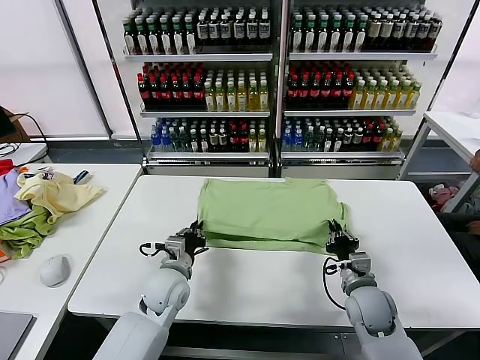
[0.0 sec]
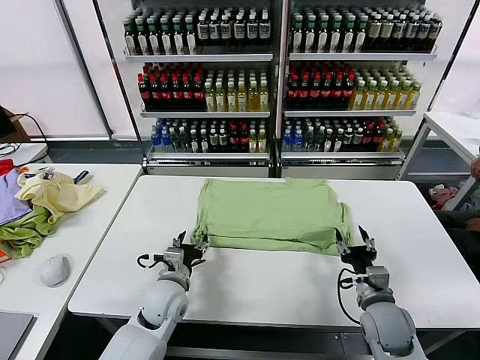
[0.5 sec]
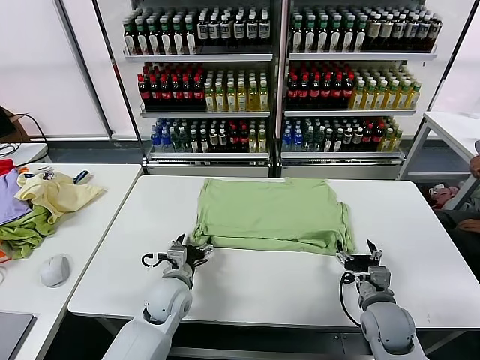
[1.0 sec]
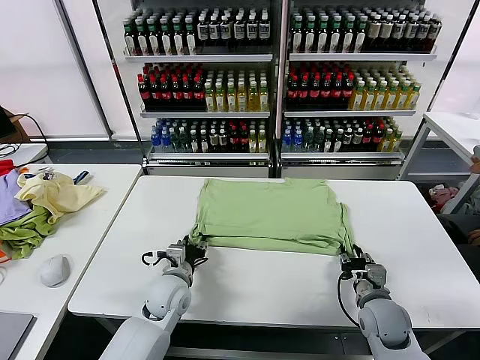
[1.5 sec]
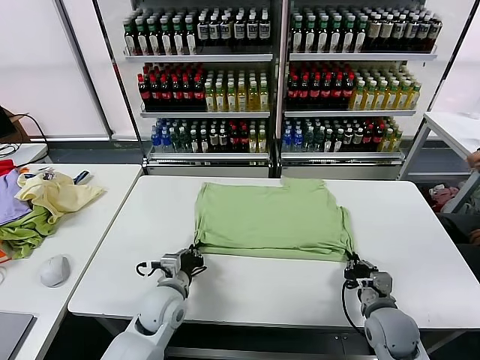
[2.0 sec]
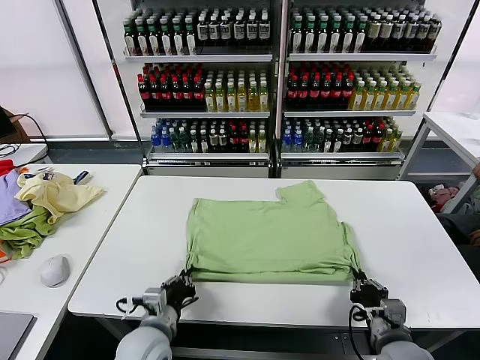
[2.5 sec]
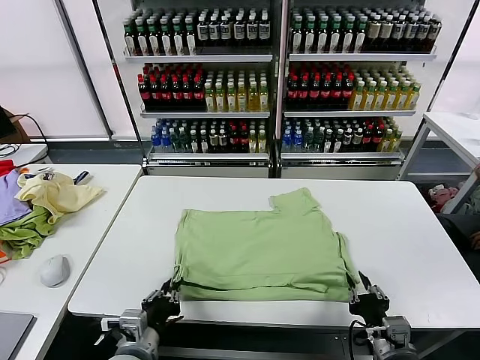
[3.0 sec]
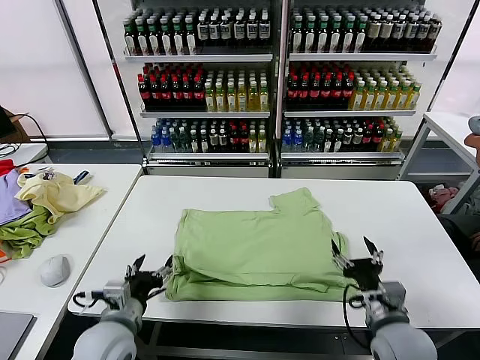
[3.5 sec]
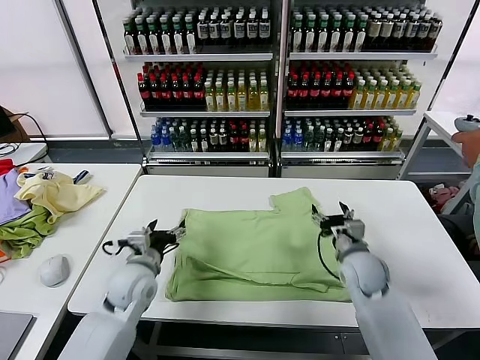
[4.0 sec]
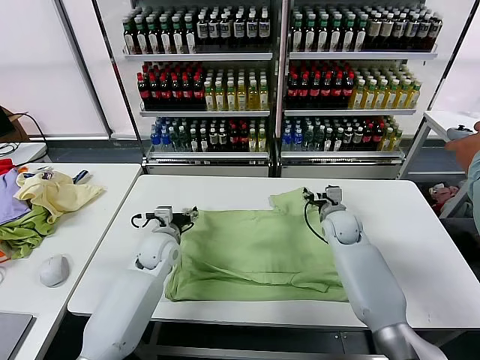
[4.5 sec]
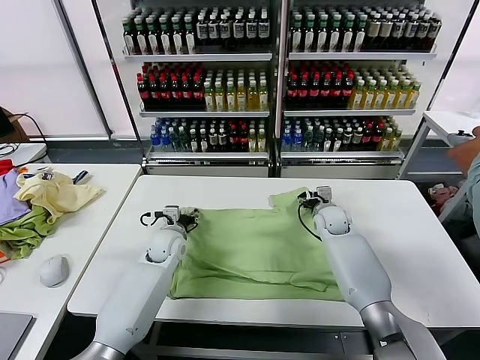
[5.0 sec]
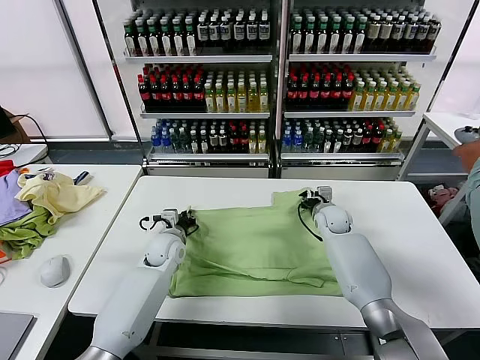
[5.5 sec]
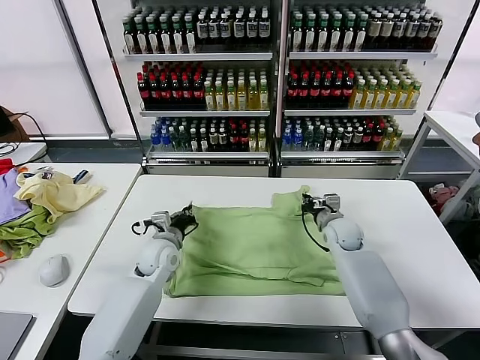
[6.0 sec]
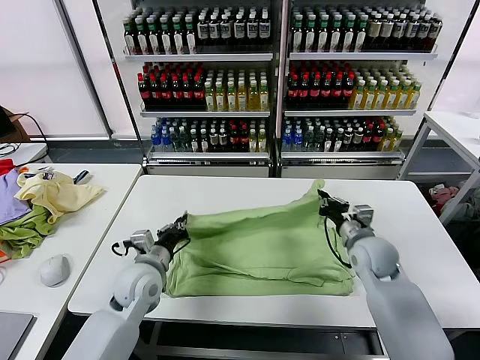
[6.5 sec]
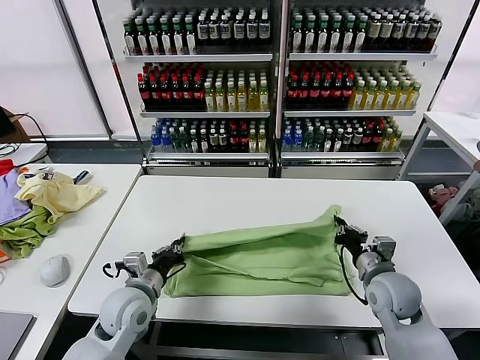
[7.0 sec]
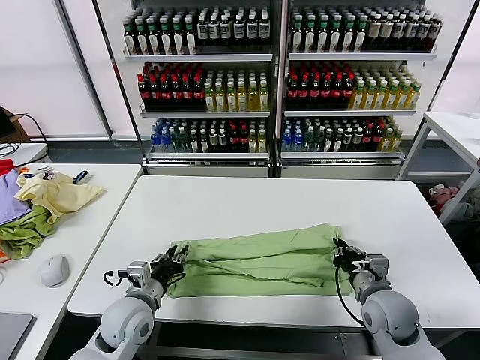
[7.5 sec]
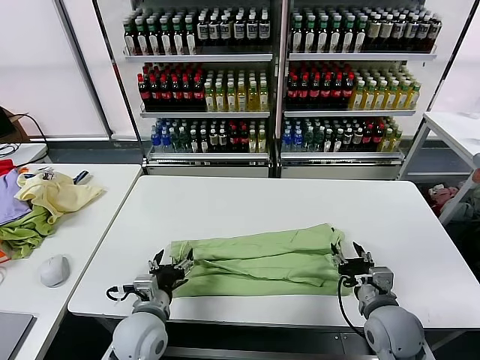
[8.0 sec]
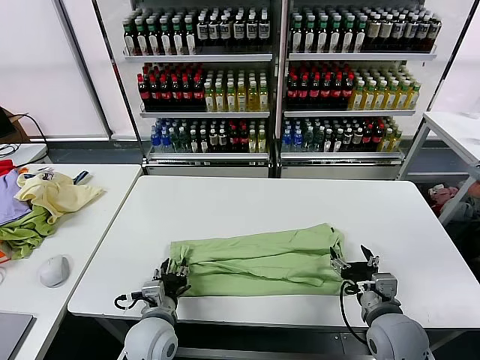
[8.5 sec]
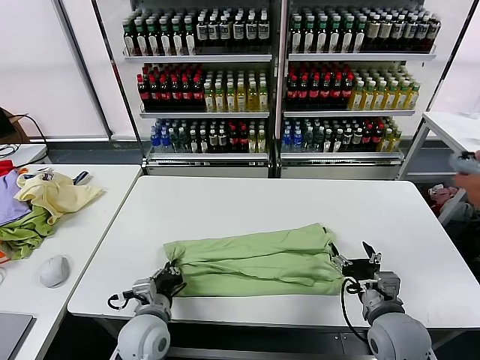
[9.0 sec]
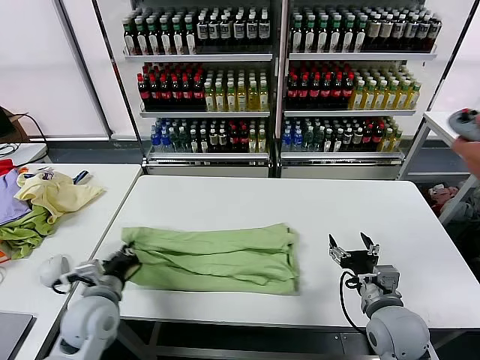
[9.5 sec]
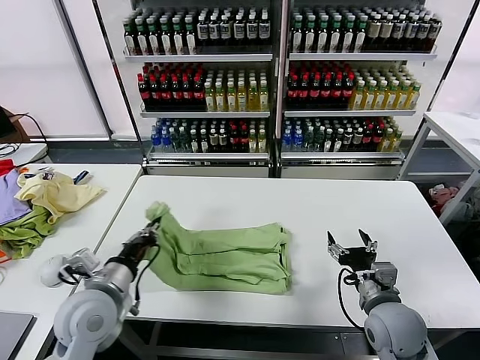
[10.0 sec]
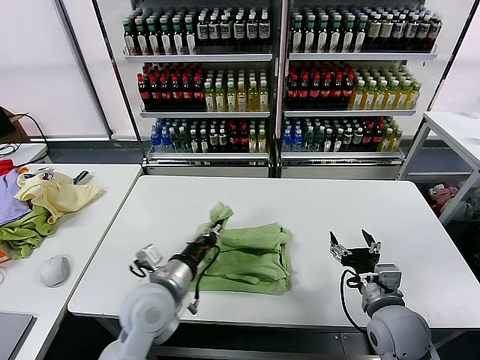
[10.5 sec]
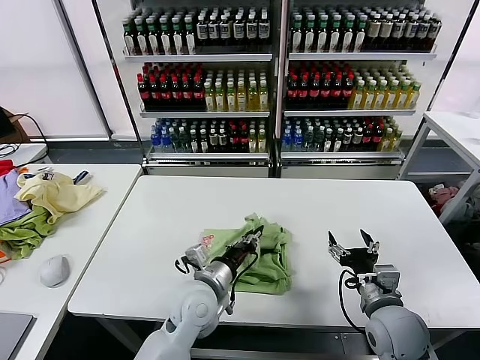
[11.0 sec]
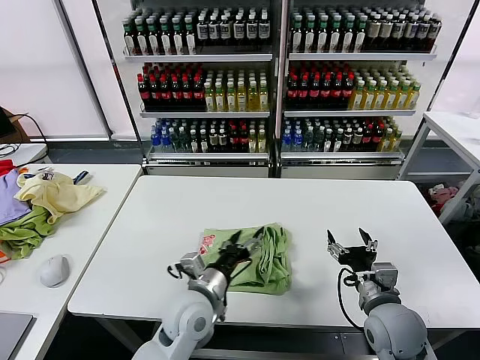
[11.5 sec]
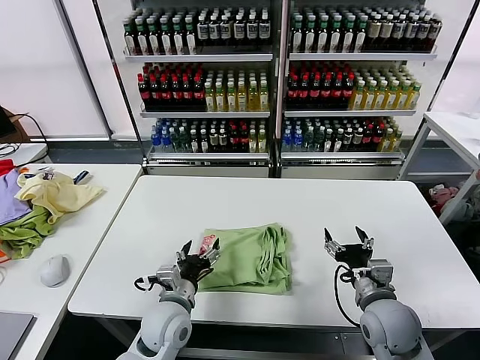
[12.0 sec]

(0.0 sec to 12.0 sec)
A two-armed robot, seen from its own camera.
Task of the whole recording: fold and organize the clothes.
Step, 1.0 sec - 3.0 sec: Drag the clothes downward with both gripper.
Step, 3.5 sec - 5.5 sec: use both grippers simultaneously to clamp the upper edge of the clothing fabric.
Step, 6.0 sec - 7.5 sec: use both grippers to drag the upper edge of the fabric backward and fold it over the lower edge.
Step, 8.0 sec - 8.5 sec: use the left gripper to clamp the left edge of the fabric.
Step, 9.0 sec - 11.0 sec: use the left gripper to drag the left edge of the fabric to the left and folds it over the right edge.
0.0 sec - 2.0 sec: The right gripper travels backward by roughly 5 cm, and opens, then closes once more; the left gripper opens, then closes once more.
2.0 sec - 4.0 sec: The left gripper shifts some 10 cm to the left and upward, travels backward and back again, about 15 cm each way, and opens up; the right gripper heads forward, covering approximately 15 cm, and opens its fingers.
4.0 sec - 6.0 sec: Both grippers travel together forward, some 10 cm. The right gripper closes. The left gripper closes.
6.0 sec - 8.0 sec: Both grippers move backward, approximately 20 cm. The right gripper opens, while the left gripper opens up.
8.0 sec - 10.0 sec: The left gripper heads upward and to the left, covering roughly 10 cm, and closes its fingers.
10.0 sec - 12.0 sec: The left gripper is displaced to the right and downward by roughly 15 cm, and opens up.

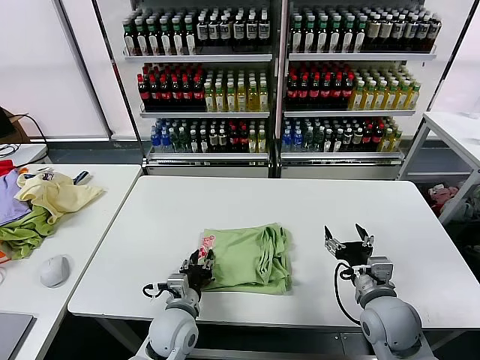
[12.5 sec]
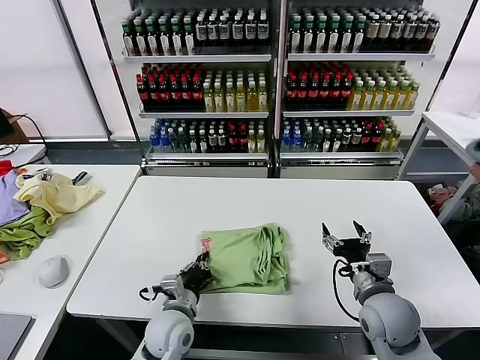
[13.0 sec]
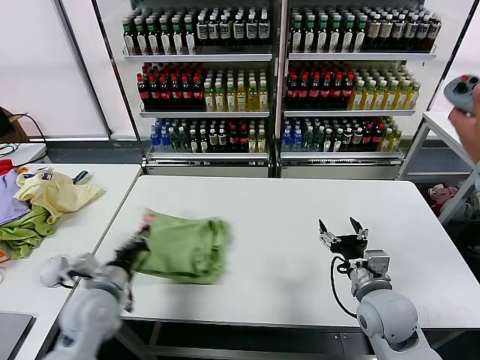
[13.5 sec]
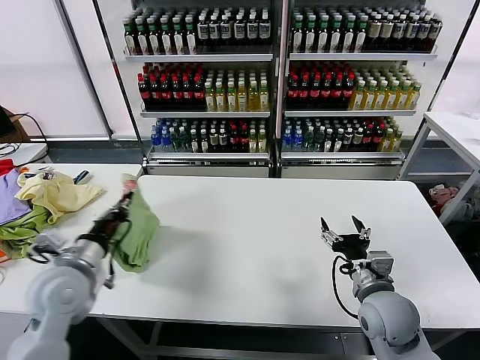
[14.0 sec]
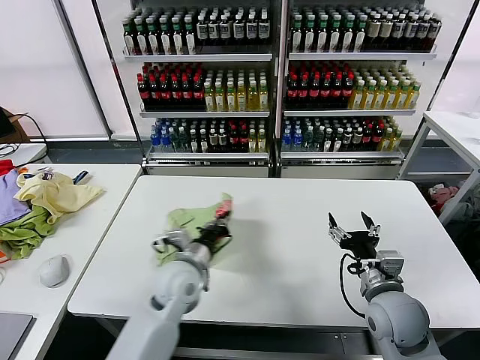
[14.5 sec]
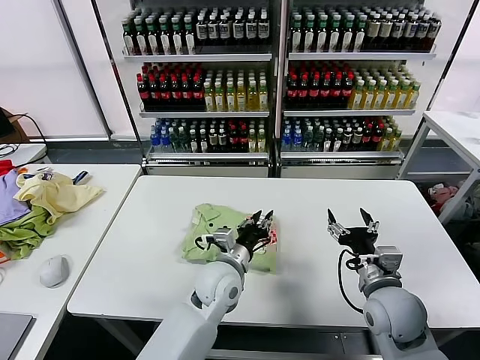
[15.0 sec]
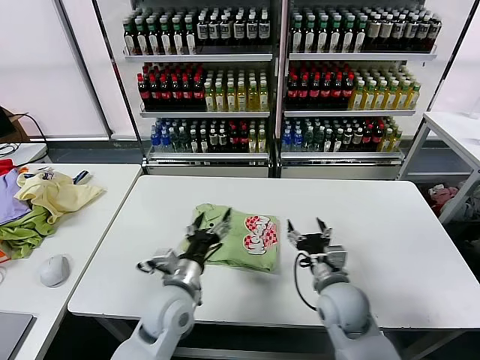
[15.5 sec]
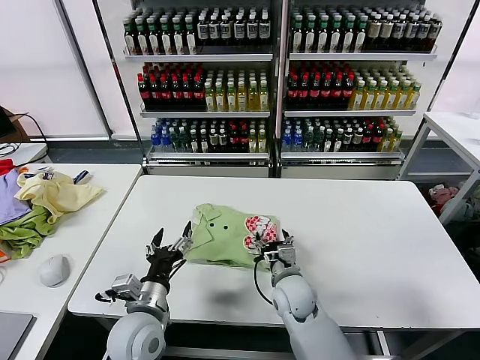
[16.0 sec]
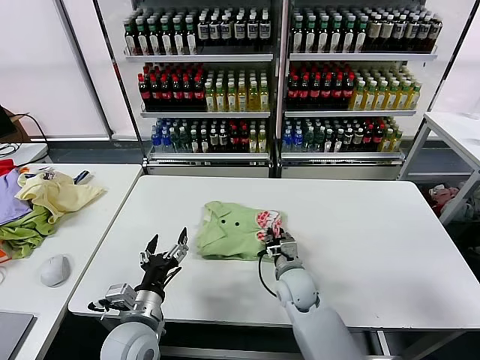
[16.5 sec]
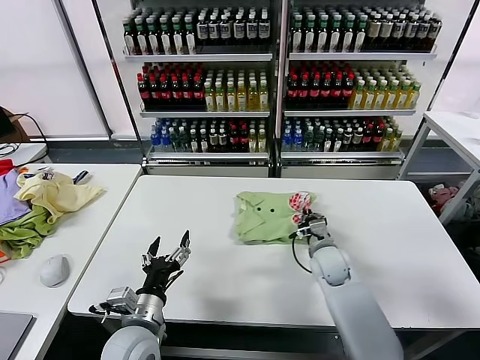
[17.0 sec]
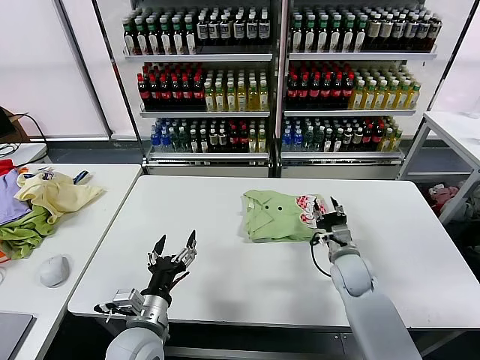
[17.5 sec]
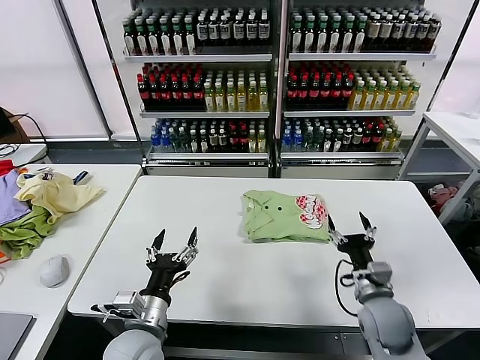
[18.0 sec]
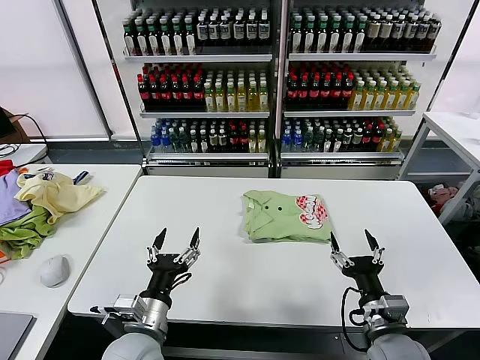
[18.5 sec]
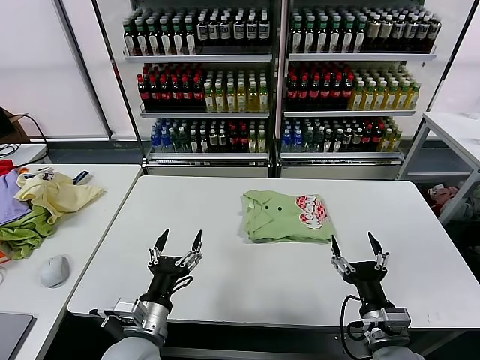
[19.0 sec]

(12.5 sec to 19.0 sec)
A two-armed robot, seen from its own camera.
Task of the whole recording: fold and organize the clothes.
Step, 12.5 sec - 15.0 sec: Flip the folded clothes over with left gripper.
Step, 15.5 sec - 17.0 sec: Drag the clothes to the center of the table.
12.5 sec - 14.5 sec: The left gripper goes approximately 10 cm upward and forward, reaches some 20 cm to the left, then returns, and closes up.
14.5 sec - 17.0 sec: The right gripper goes approximately 20 cm forward, downward and to the left, and closes its fingers. Meanwhile the left gripper moves backward, approximately 10 cm, reaches some 10 cm to the right, then returns, and opens.
17.0 sec - 19.0 sec: The right gripper travels backward by some 25 cm, and opens.
